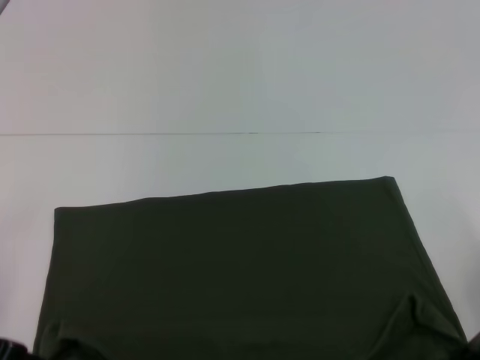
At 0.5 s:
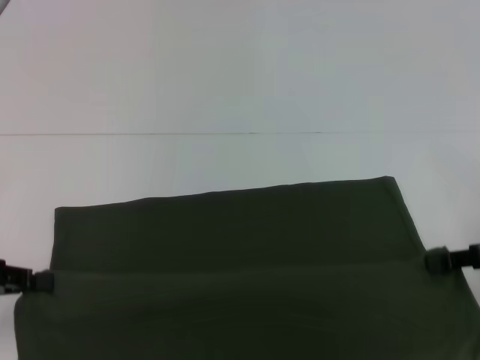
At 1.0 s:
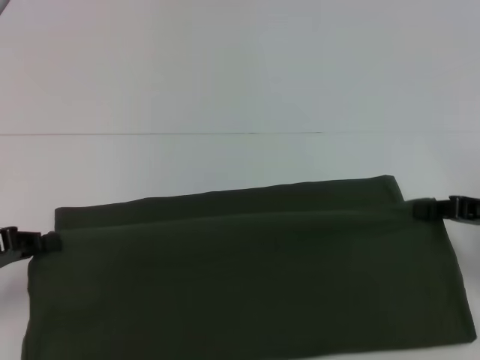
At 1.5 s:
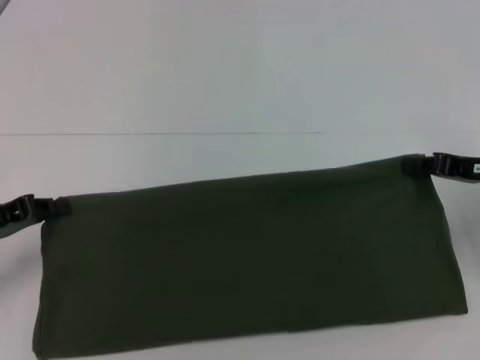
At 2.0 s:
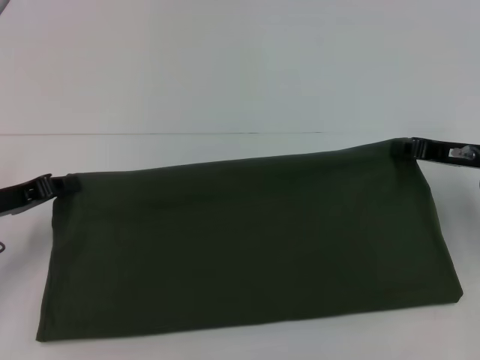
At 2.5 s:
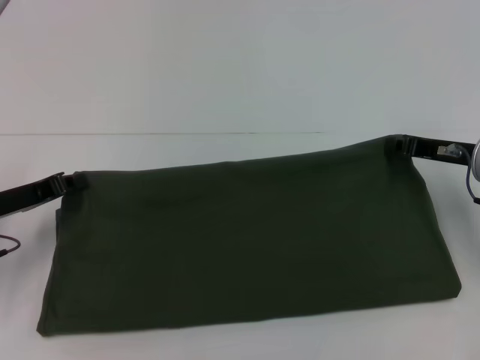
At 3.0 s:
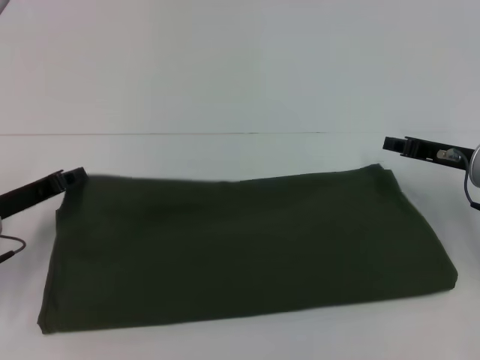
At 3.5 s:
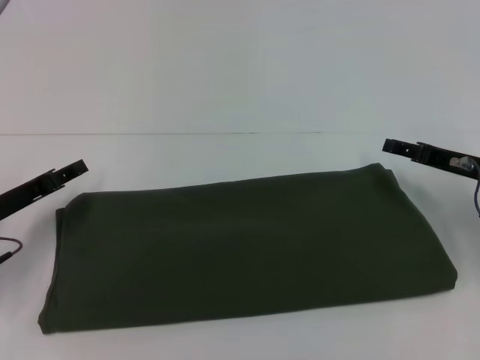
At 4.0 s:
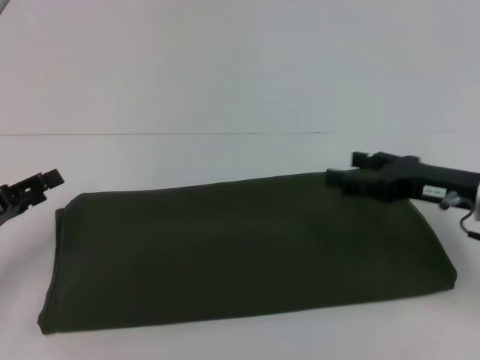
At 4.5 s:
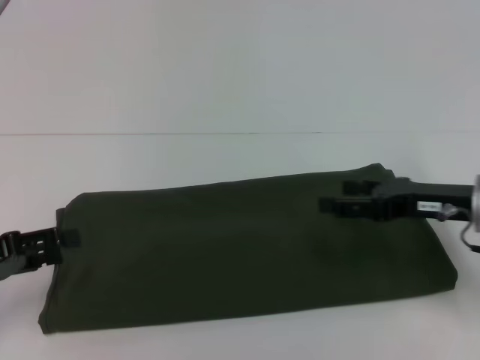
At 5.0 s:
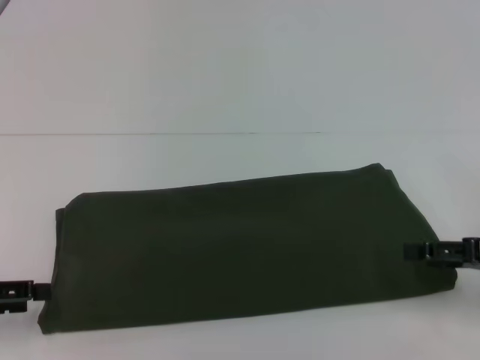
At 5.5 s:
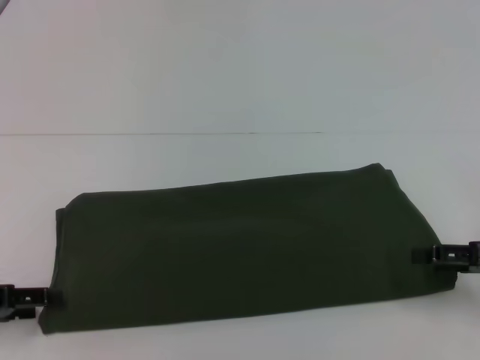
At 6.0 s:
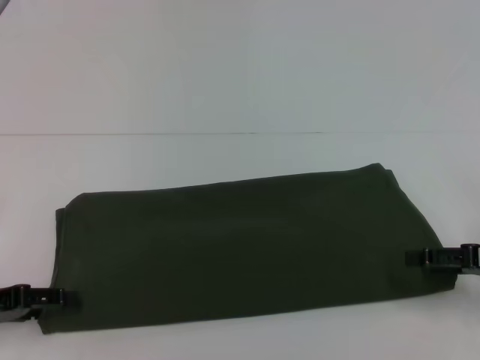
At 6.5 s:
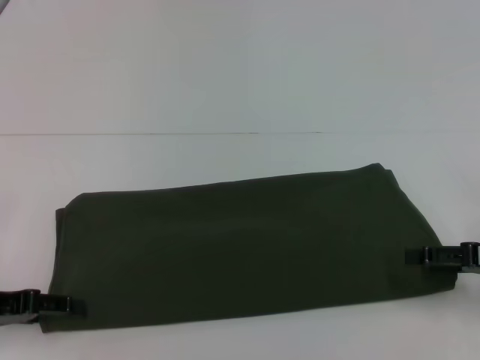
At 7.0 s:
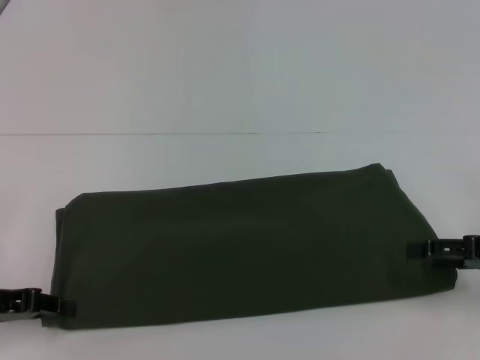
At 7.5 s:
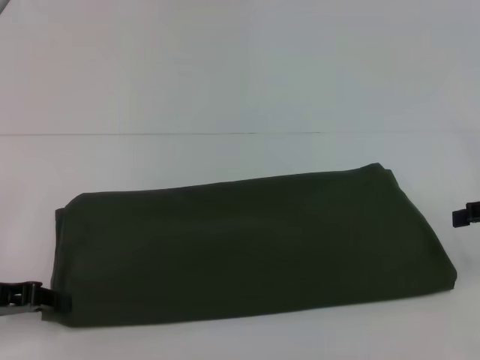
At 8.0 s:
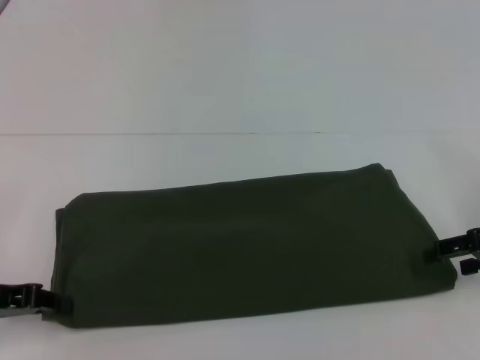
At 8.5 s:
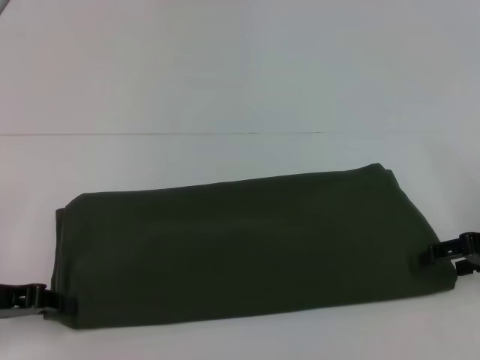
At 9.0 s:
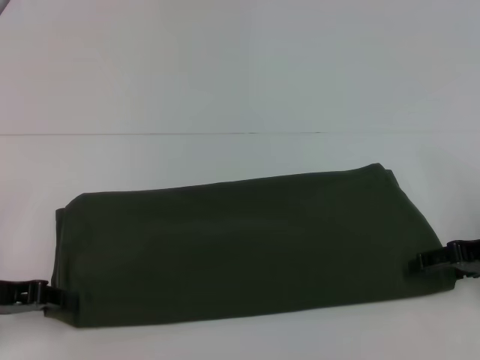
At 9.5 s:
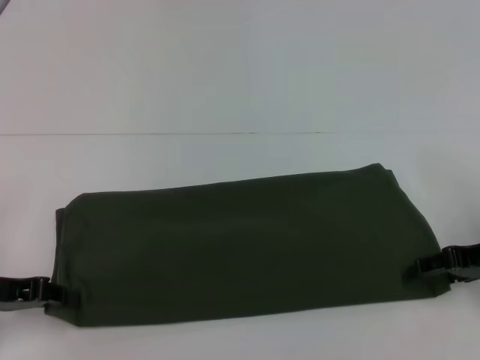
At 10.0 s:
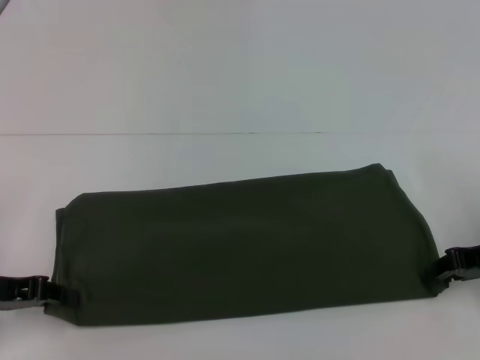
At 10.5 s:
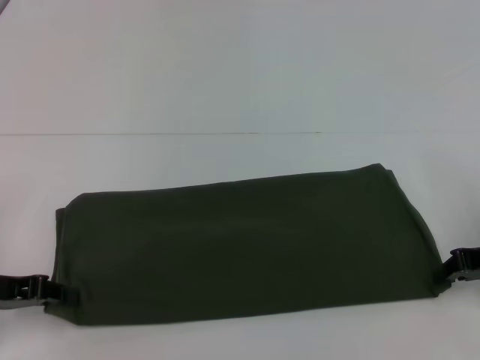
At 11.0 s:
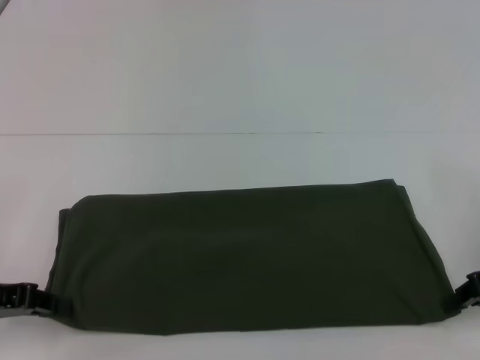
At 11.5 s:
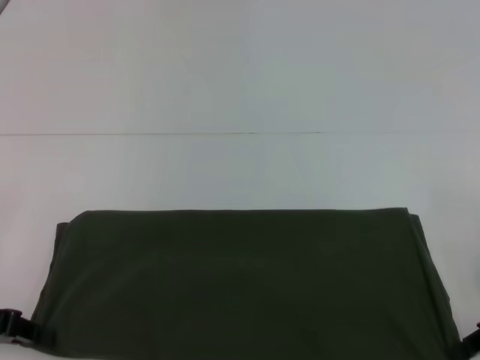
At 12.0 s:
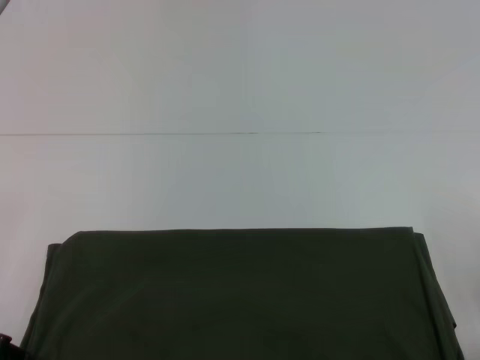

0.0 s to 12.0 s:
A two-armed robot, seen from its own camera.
Step, 0.0 to 3.0 s: Fold the clothes with your left hand.
Step, 0.0 to 3.0 s: Fold the clothes with your right hand.
0.0 to 2.0 s: The two grippers go approximately 10 cm forward.
2.0 to 4.0 s: The left gripper travels backward by approximately 5 cm, and opens up. The right gripper shifts by approximately 5 cm, and opens its fingers.
4.0 to 6.0 s: The right gripper moves to the right, about 10 cm.
6.0 to 8.0 s: The left gripper closes.
8.0 to 10.0 s: The right gripper closes up.
10.0 to 12.0 s: The right gripper heads backward, covering some 5 cm, and closes its fingers.

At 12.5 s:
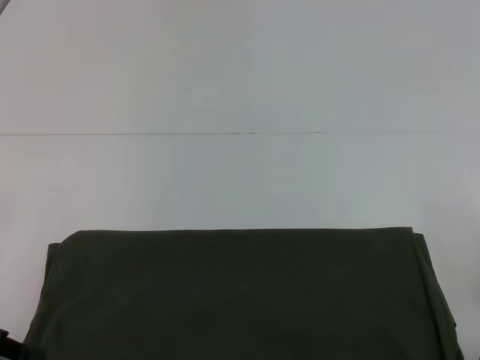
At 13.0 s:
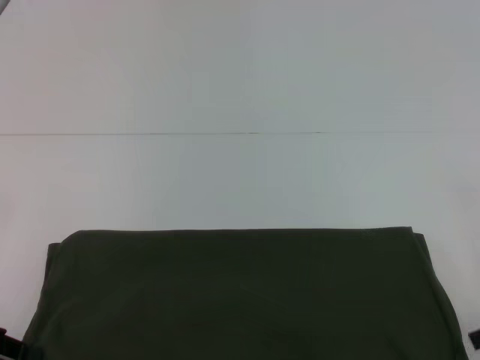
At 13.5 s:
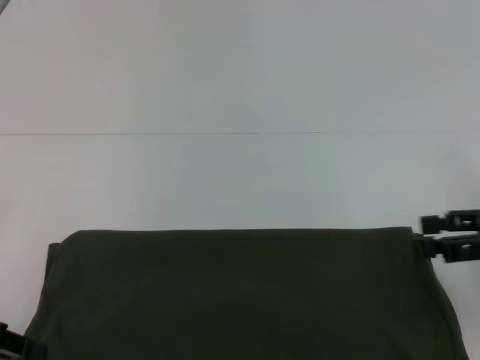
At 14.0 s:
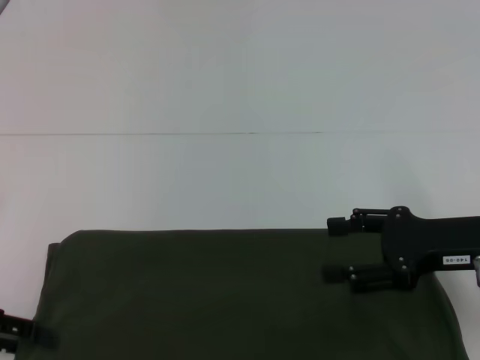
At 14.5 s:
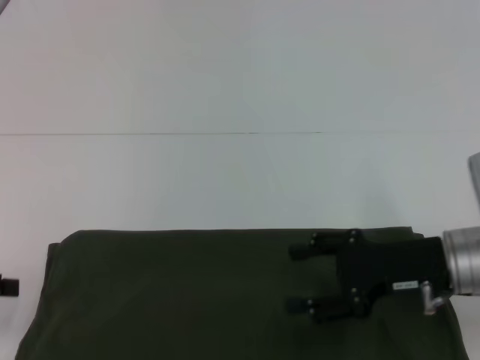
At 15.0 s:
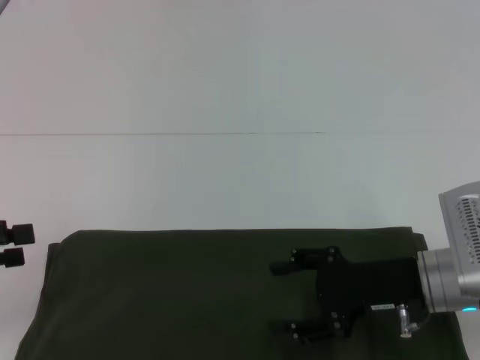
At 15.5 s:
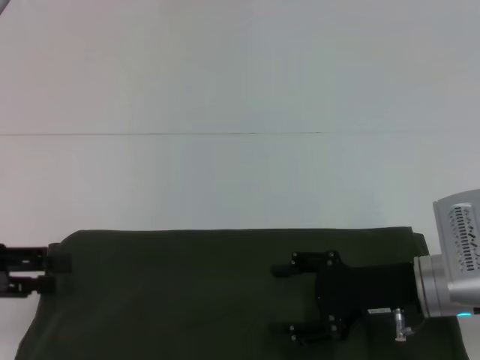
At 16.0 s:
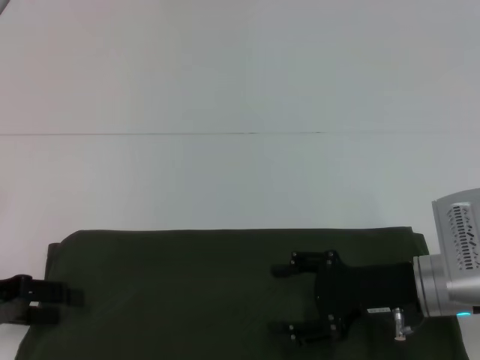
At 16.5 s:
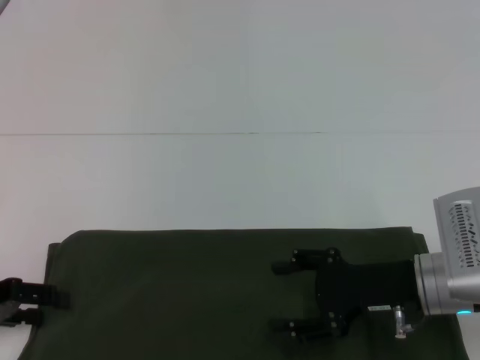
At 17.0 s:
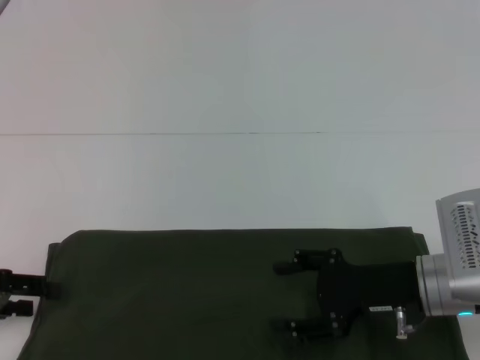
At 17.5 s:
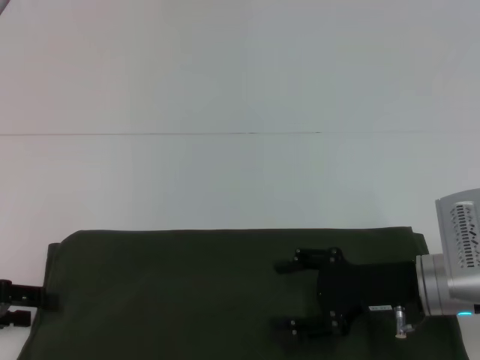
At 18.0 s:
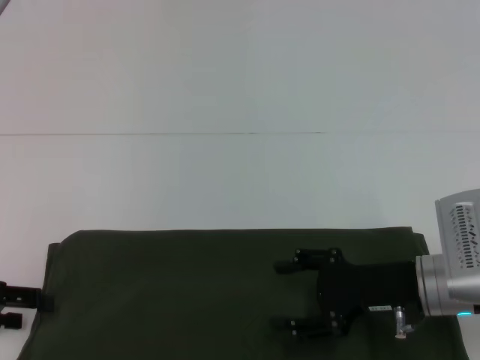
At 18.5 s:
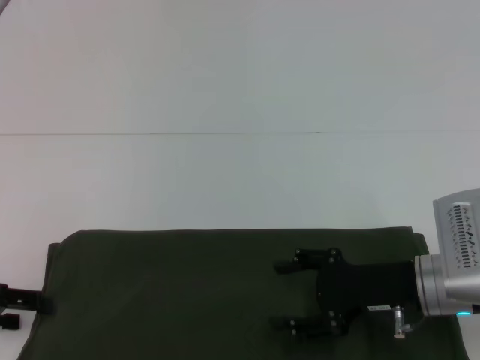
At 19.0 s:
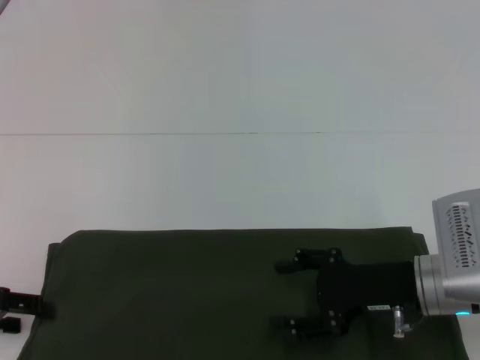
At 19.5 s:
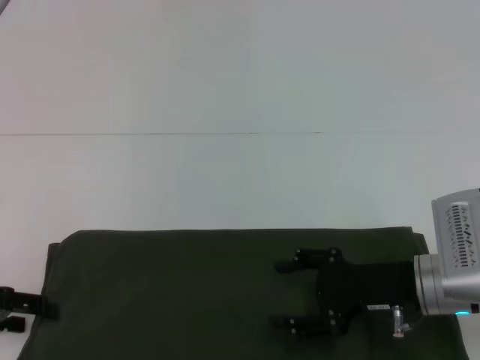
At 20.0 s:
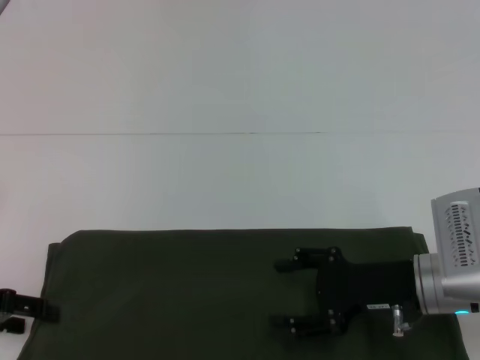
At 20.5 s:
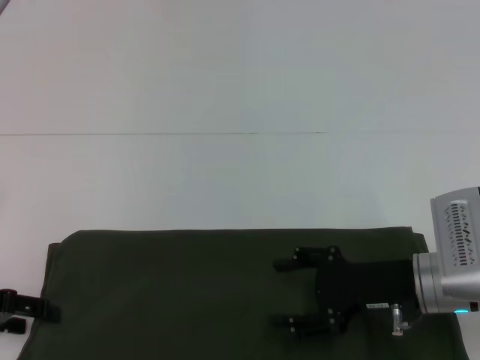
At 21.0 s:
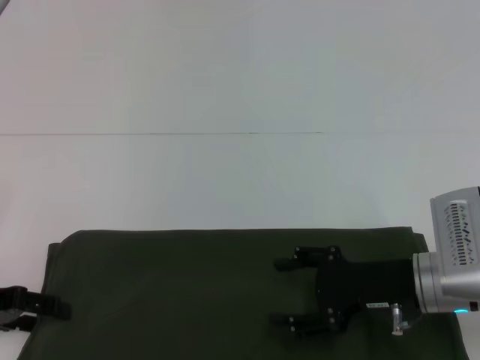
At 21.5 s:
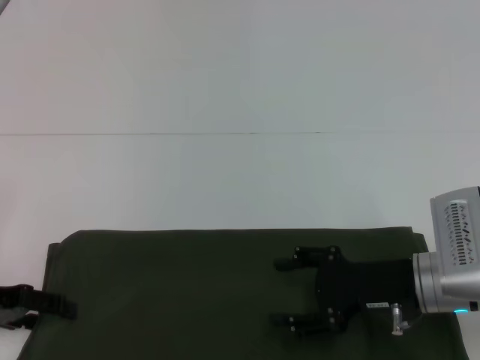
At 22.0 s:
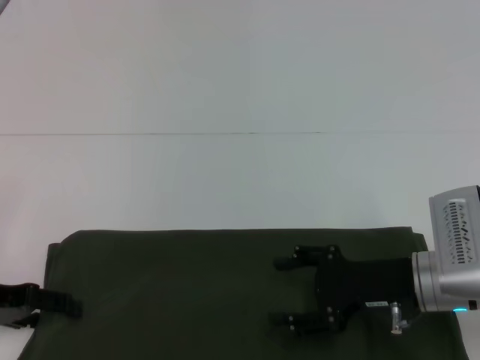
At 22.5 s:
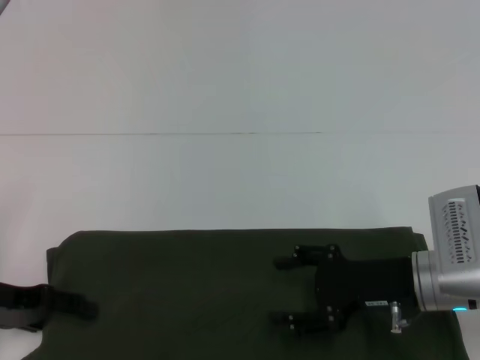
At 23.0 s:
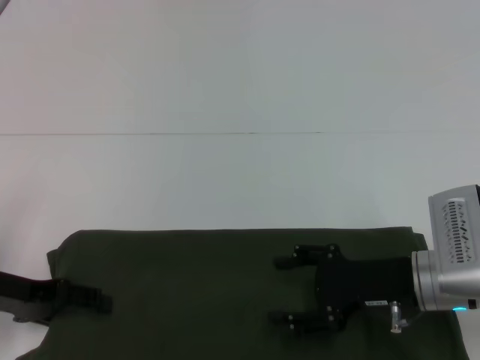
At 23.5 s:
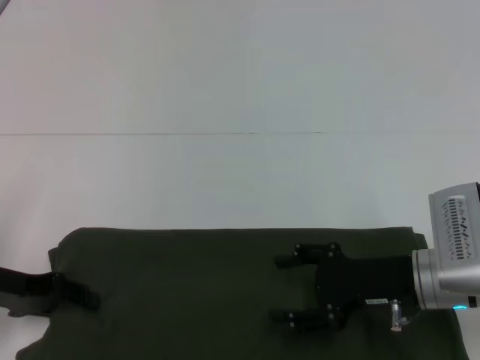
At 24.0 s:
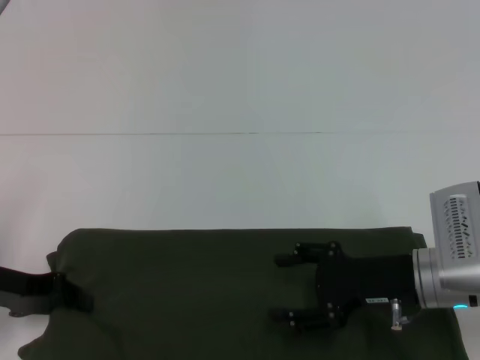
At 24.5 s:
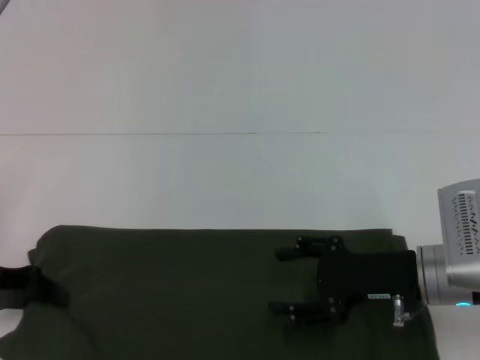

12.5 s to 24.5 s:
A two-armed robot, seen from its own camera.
12.5 to 14.5 s: The right gripper heads to the left, covering some 10 cm, and opens up. Meanwhile the left gripper opens up.
14.5 to 16.5 s: The left gripper moves some 5 cm.
16.5 to 22.5 s: The grippers make only small movements.
22.5 to 24.5 s: The left gripper closes its fingers.

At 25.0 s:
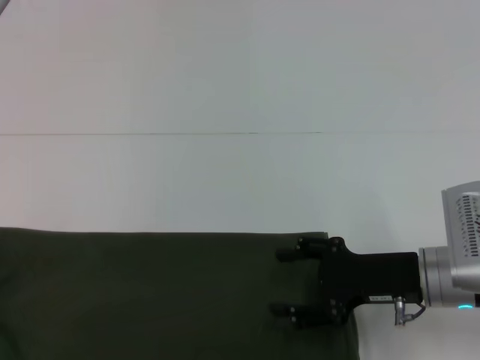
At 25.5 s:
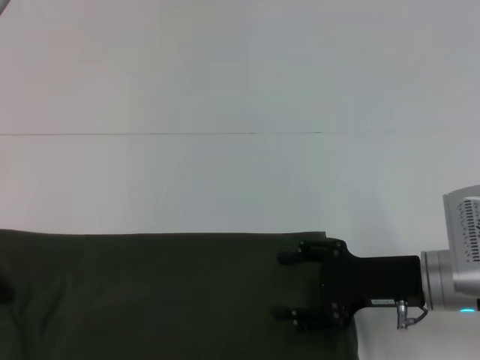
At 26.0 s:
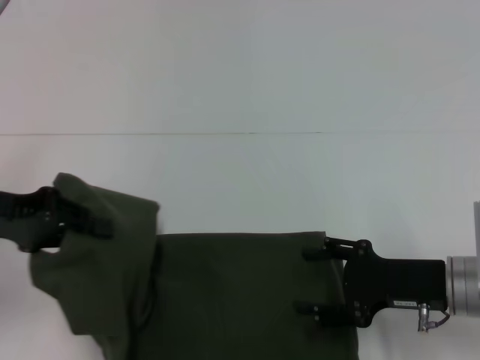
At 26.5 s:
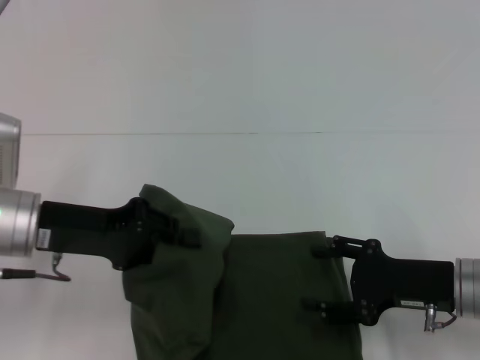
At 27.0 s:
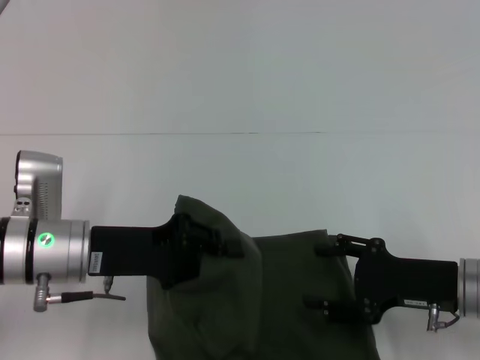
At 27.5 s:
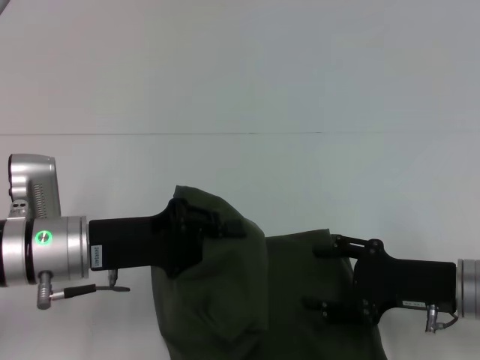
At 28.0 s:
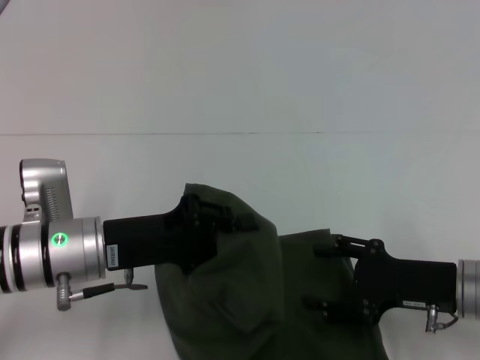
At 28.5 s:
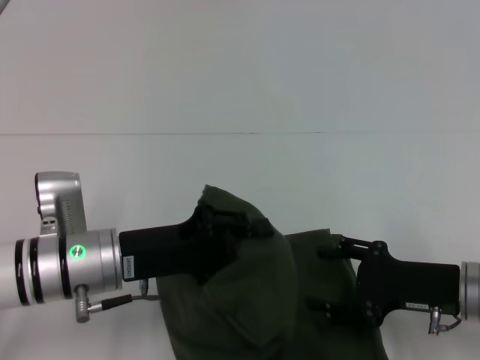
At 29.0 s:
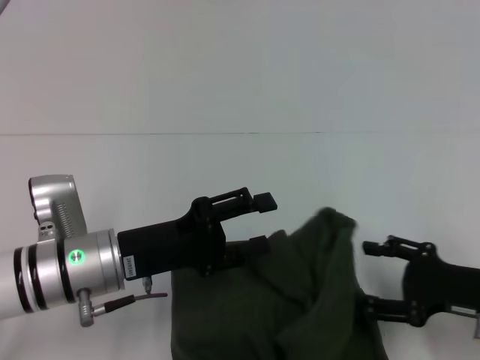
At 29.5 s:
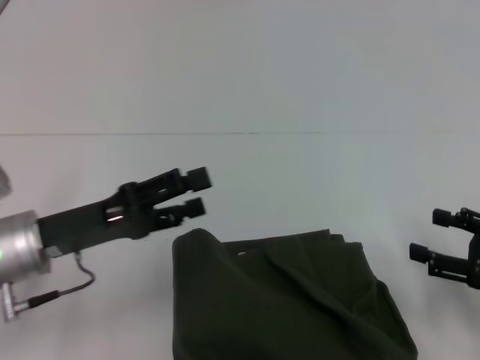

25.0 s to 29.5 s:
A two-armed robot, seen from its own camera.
Step, 25.0 to 29.0 s: Fold the clothes with your left hand.
25.0 to 27.0 s: The left gripper is displaced to the right by about 20 cm.
27.0 to 29.5 s: The right gripper shifts approximately 10 cm to the right. The left gripper opens.
